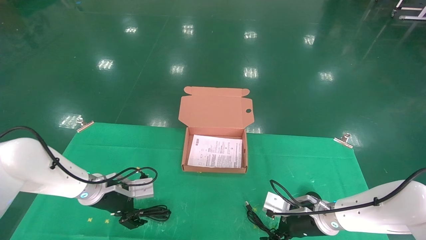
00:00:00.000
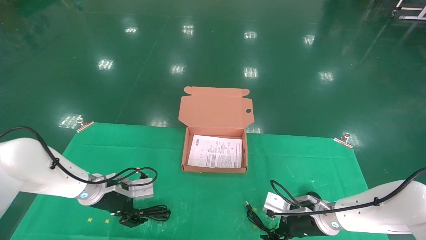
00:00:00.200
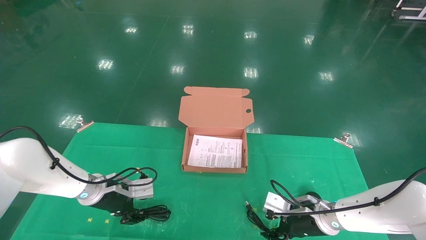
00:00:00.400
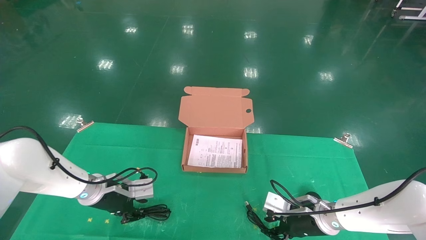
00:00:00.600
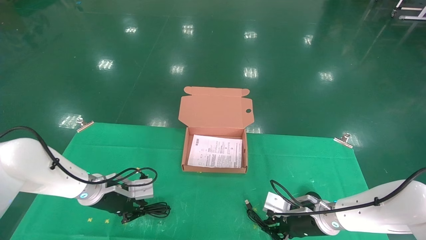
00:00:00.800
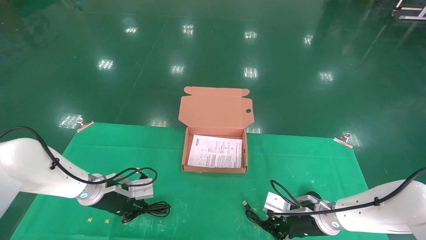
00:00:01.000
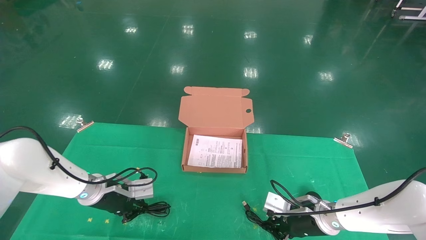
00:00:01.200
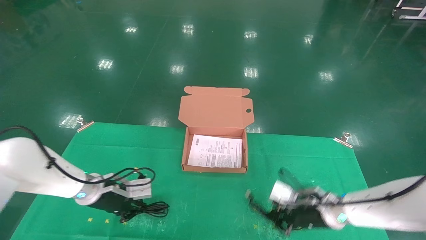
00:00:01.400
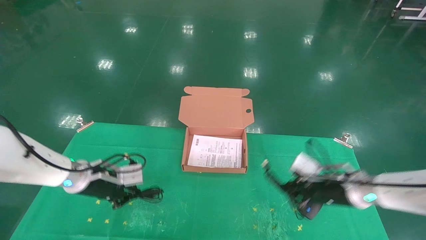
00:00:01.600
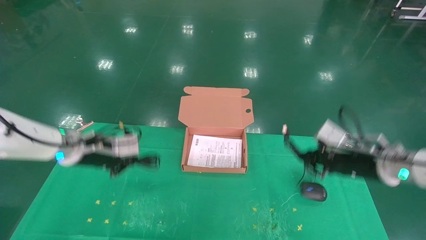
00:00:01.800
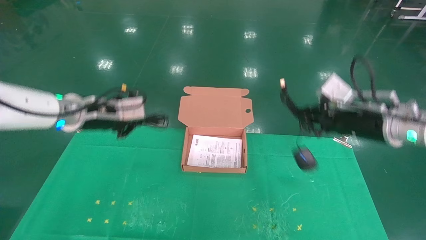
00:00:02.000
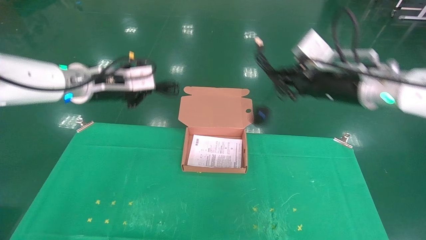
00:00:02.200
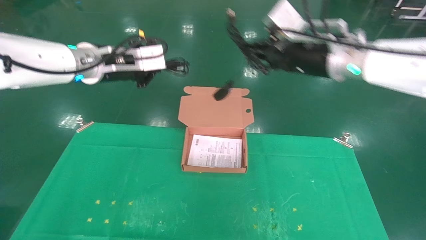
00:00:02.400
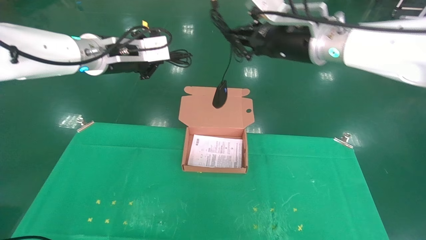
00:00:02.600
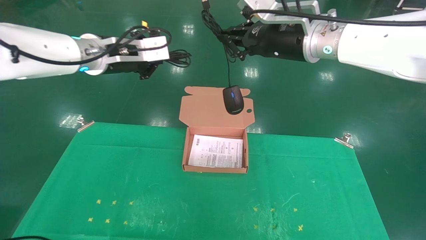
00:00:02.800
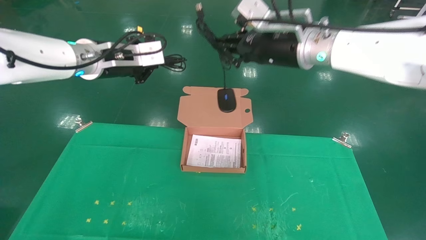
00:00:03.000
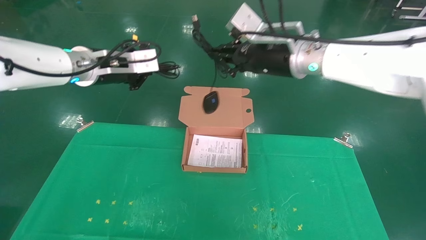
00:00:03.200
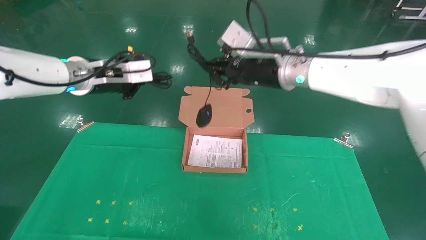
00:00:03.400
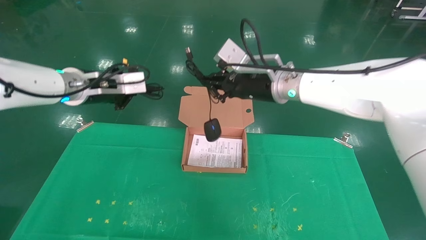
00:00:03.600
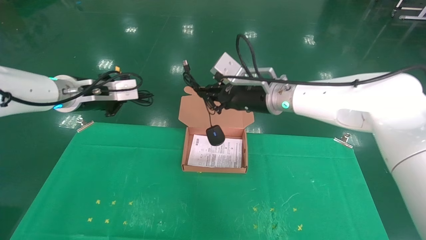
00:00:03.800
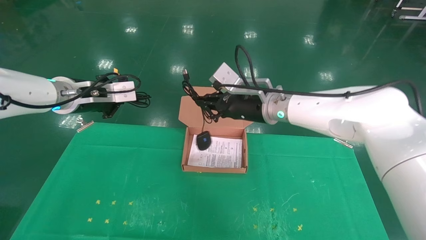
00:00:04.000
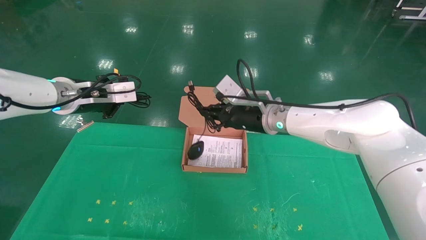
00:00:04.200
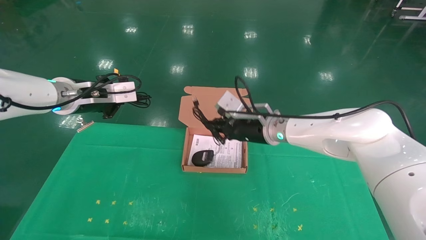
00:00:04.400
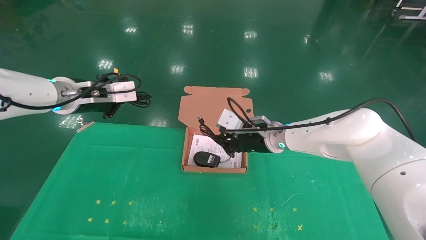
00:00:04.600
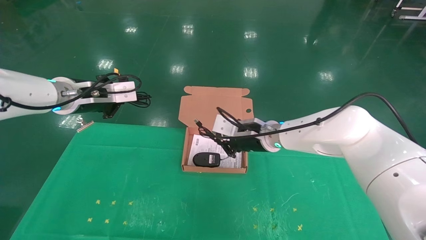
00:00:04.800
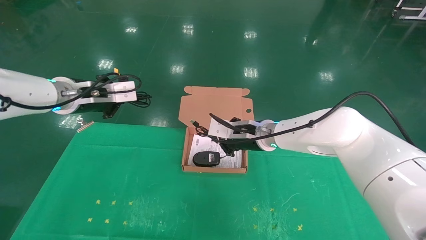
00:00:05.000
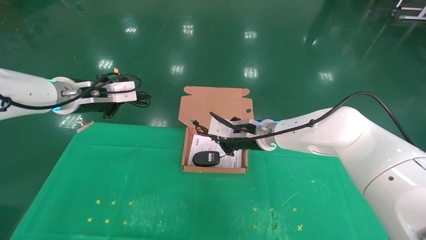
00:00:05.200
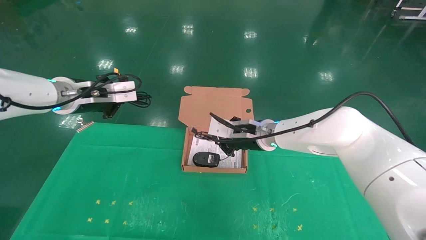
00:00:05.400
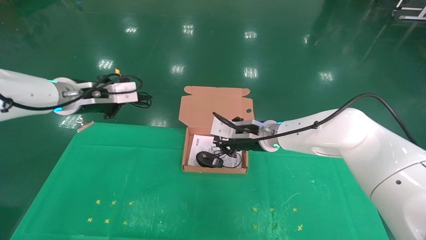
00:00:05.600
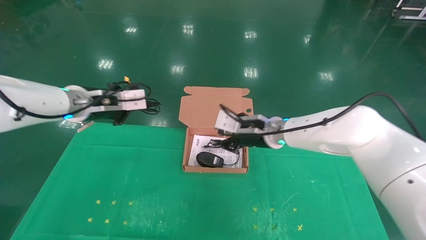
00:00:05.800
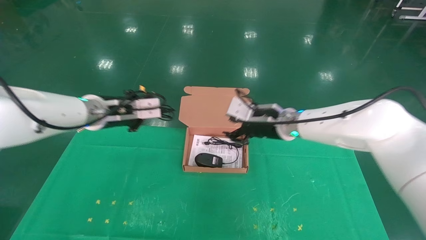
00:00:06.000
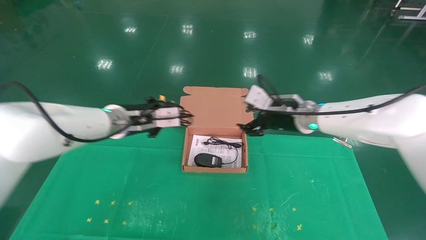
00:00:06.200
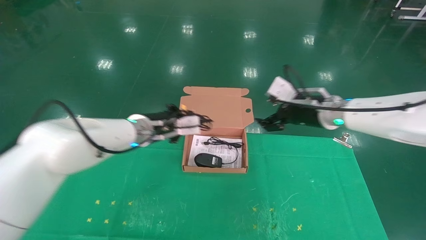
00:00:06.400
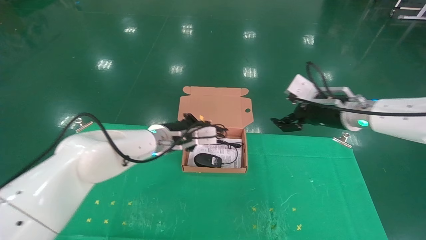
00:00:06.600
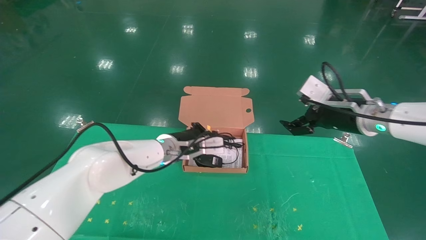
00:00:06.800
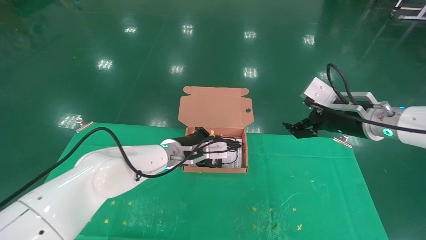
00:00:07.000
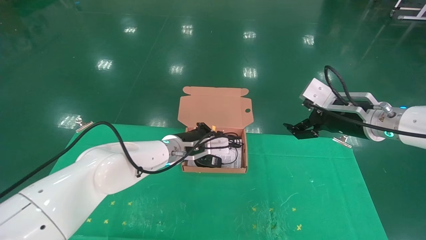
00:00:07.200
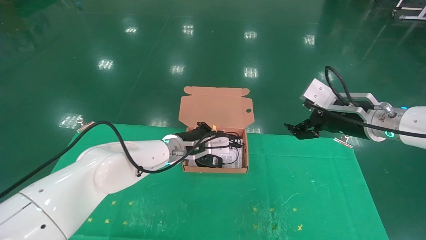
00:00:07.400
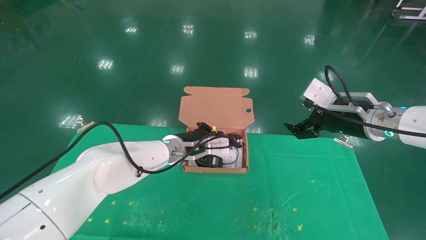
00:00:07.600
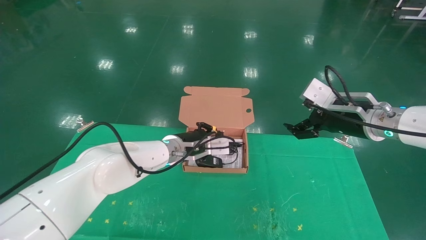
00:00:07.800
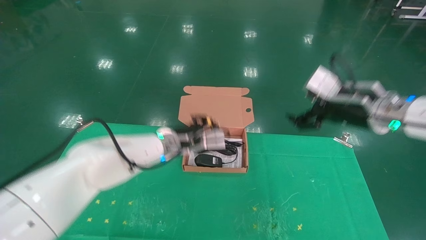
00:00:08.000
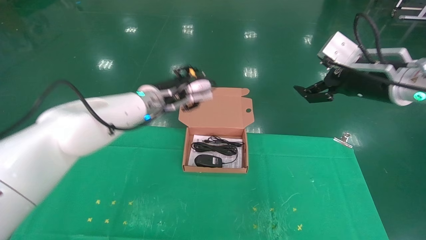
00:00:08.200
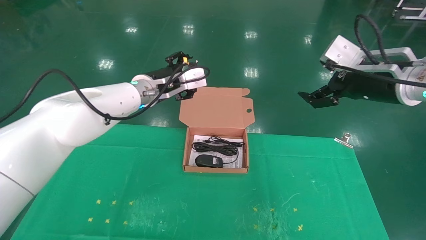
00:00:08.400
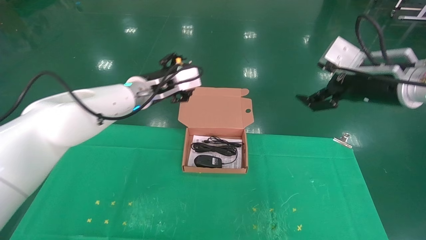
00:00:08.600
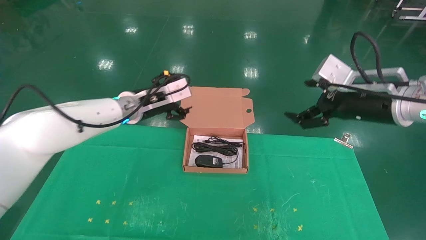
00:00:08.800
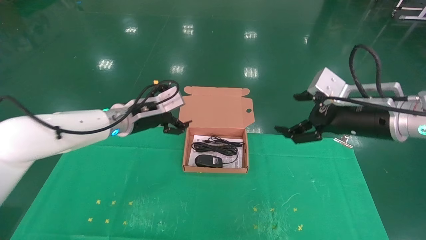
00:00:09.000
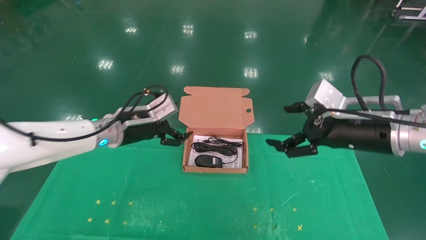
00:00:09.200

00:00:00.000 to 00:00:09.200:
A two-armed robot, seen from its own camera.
Task of the whole recording: grasp data cable left put into box grasp mouse right put into box.
Step, 00:00:00.000 to 00:00:02.200: Grab and pick up both the mouse and power cord from the accessory packaging area at the same time.
Step, 00:00:02.400 to 00:00:08.600: Place the mouse and power cord into the box.
00:00:00.000 to 00:00:01.600: The right gripper moves upward and to the right, roughly 10 cm, and closes up. The left gripper moves upward, approximately 5 cm, and closes its fingers.
00:00:01.600 to 00:00:03.000: The left gripper shifts roughly 25 cm upward. The right gripper shifts approximately 30 cm upward and to the left.
00:00:03.000 to 00:00:04.600: The right gripper moves downward, some 20 cm; the left gripper heads downward and to the left, covering approximately 10 cm.
00:00:04.600 to 00:00:06.200: The left gripper shifts some 10 cm to the right and downward. The right gripper shifts roughly 10 cm to the right, and opens up.
00:00:06.200 to 00:00:07.600: The left gripper heads to the right and downward, covering approximately 15 cm, while the right gripper travels to the right and backward by approximately 10 cm, and opens up.
00:00:07.600 to 00:00:09.200: The left gripper is displaced to the left and upward by some 15 cm, and opens. Meanwhile the right gripper goes about 5 cm backward.
